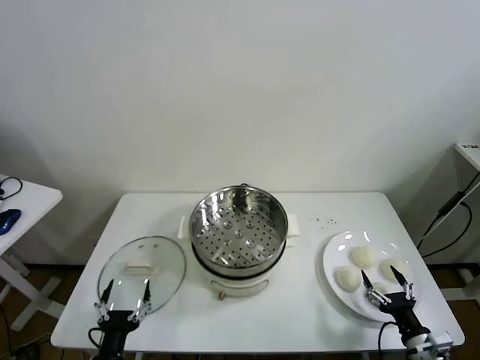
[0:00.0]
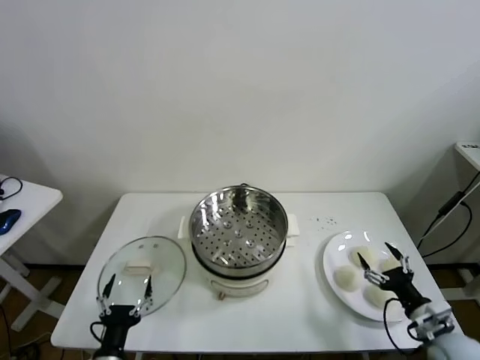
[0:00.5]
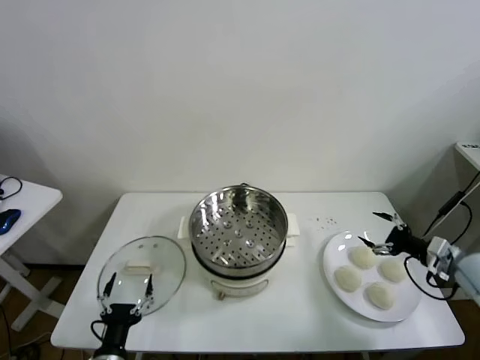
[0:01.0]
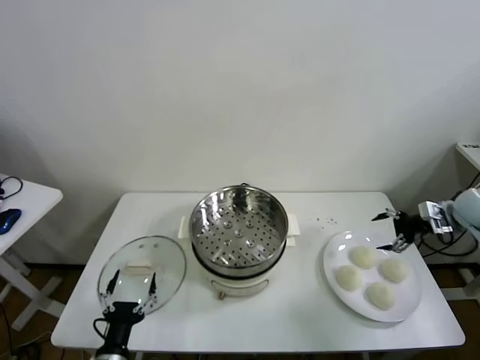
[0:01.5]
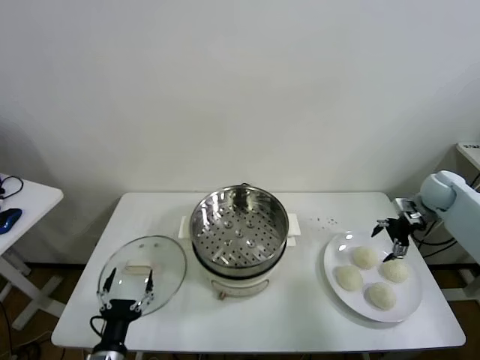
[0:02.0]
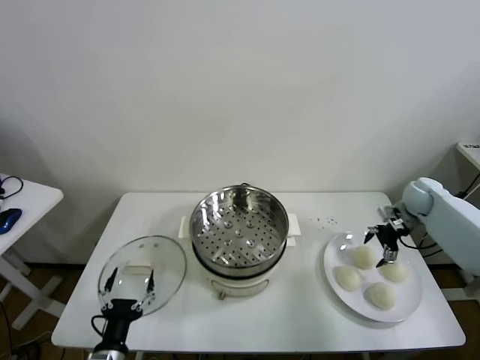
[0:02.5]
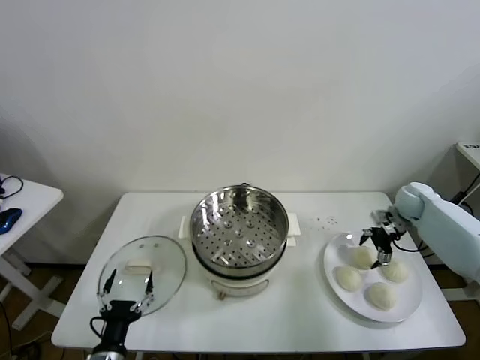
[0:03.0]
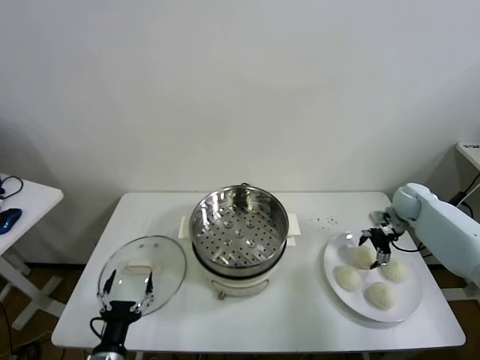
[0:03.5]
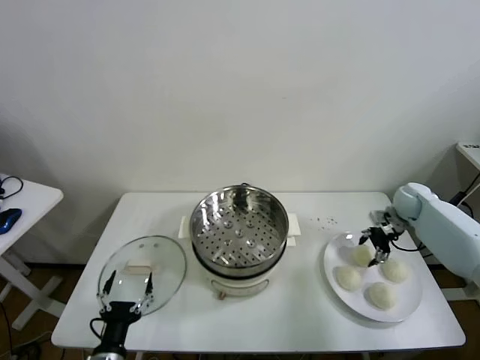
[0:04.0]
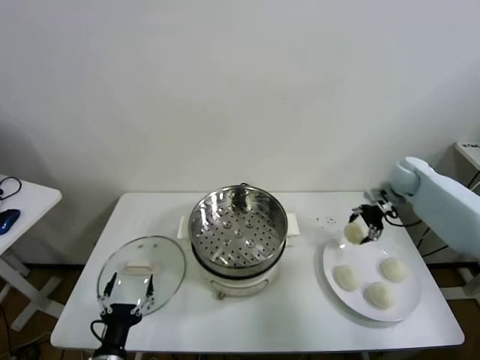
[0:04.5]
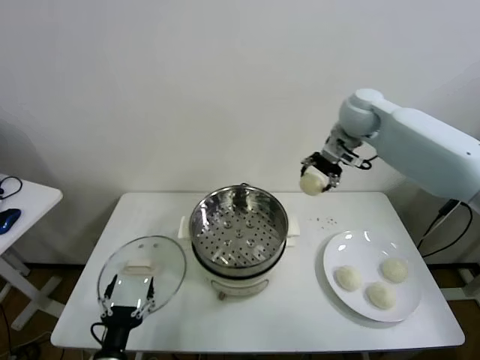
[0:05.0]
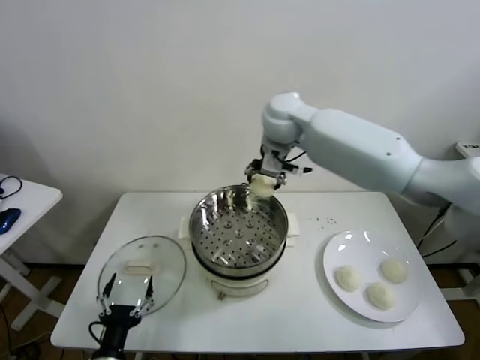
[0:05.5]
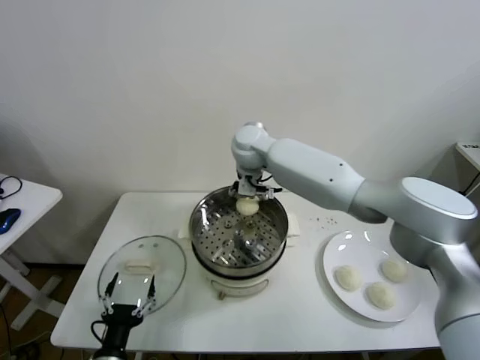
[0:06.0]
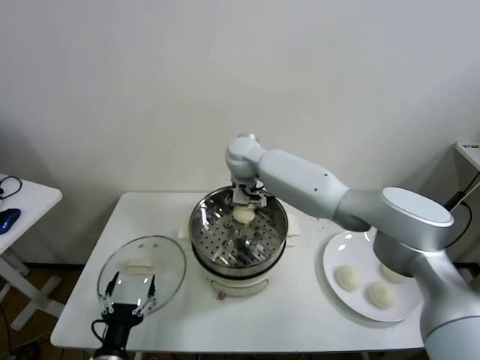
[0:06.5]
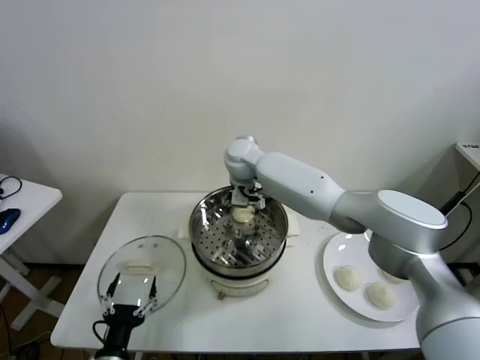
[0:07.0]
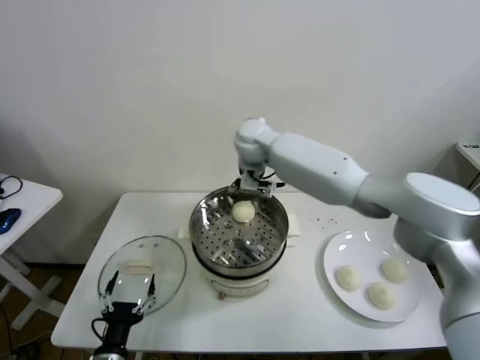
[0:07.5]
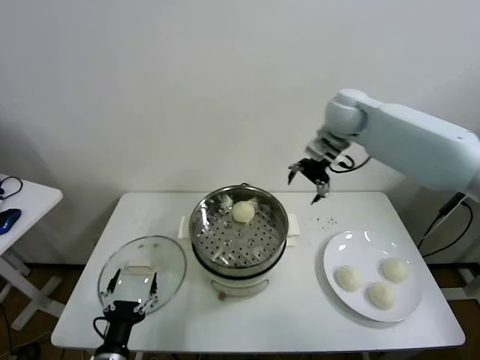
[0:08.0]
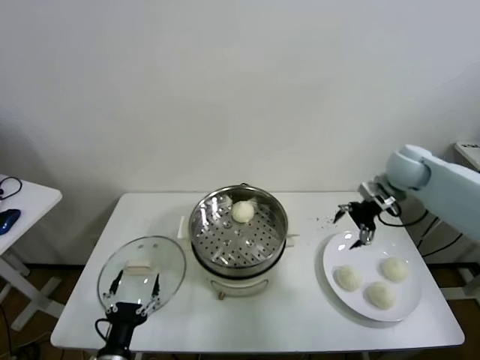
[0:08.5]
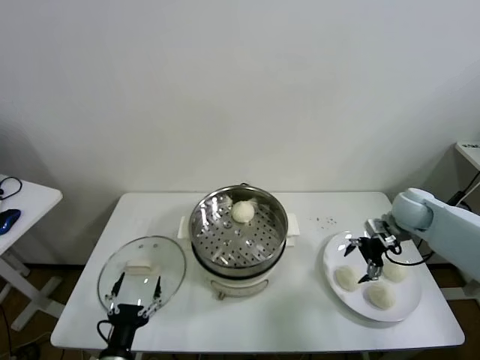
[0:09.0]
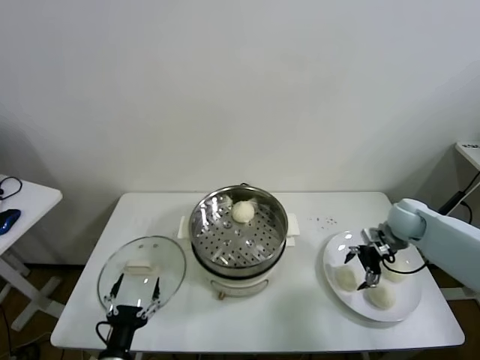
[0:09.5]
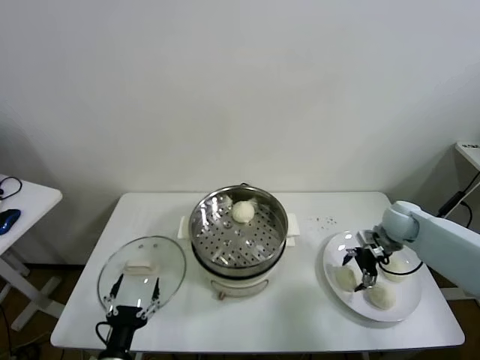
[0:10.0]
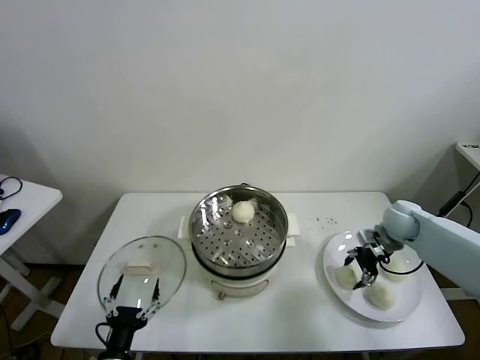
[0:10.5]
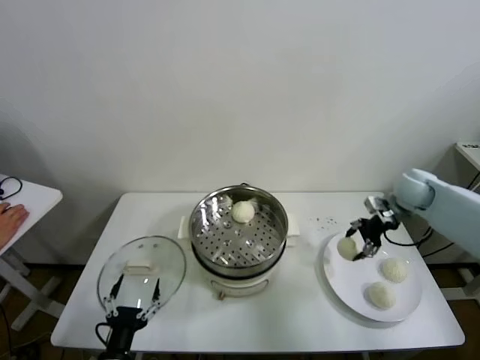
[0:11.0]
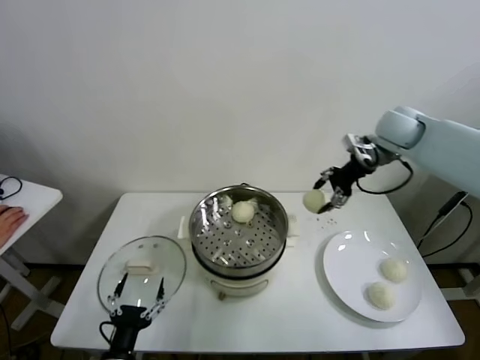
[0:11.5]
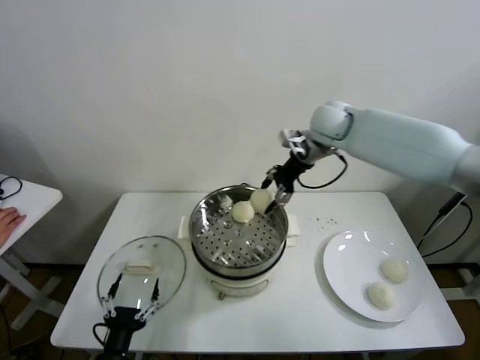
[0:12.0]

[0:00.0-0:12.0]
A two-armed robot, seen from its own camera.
Task of the whole recording: take steamed baozi put them in steamer.
Step, 0.0 to 3.5 s: Grasp the baozi in the plate with right gripper.
Step, 4.0 to 7.0 s: Place the baozi on the steamer with right gripper.
Step, 7.5 to 10.0 s: Grasp the baozi in the plate with right gripper.
2.0 to 4.0 s: The right gripper heads downward, covering some 5 cm, and closes its fingers.
4.0 to 6.0 s: The right gripper heads to the left, covering roughly 40 cm.
6.0 to 8.0 s: The right gripper heads to the right and upward, covering approximately 20 cm, and opens its fingers.
8.0 to 10.0 s: The right gripper goes some 30 cm downward and to the right.
10.0 to 12.0 s: The right gripper shifts about 30 cm upward, to the left and forward, and closes its fingers.

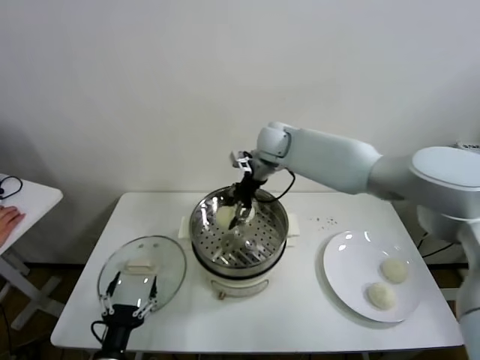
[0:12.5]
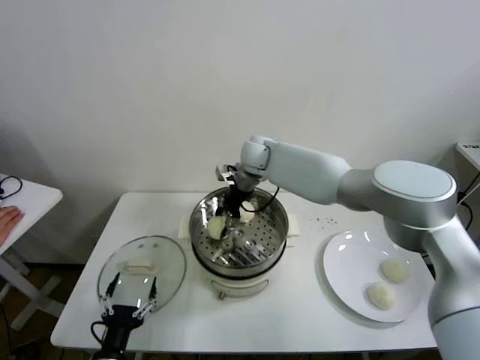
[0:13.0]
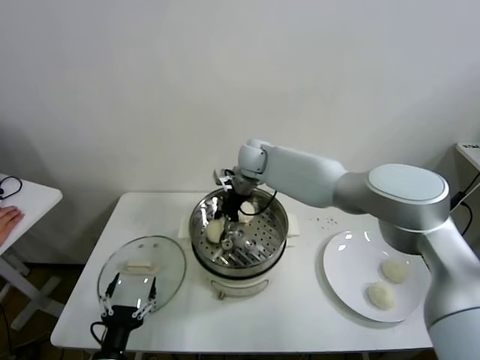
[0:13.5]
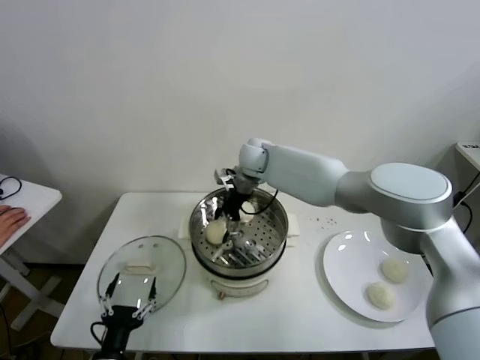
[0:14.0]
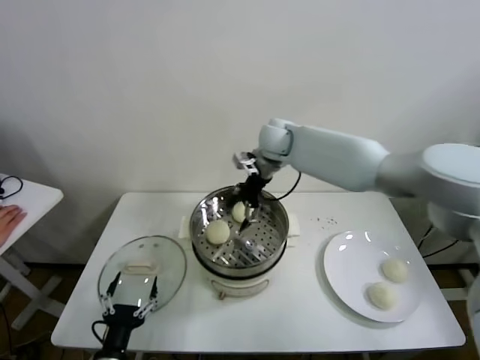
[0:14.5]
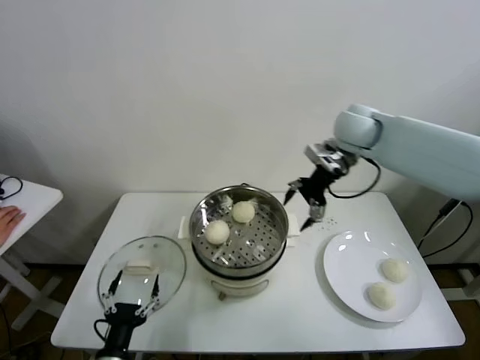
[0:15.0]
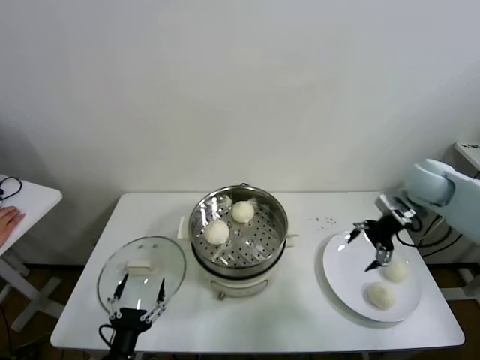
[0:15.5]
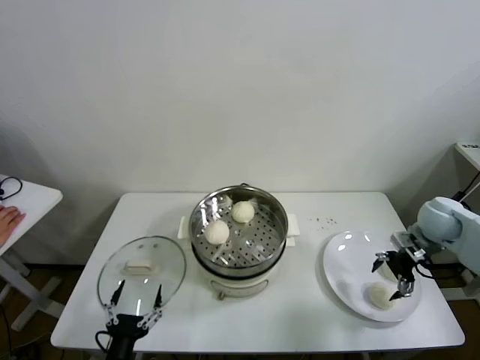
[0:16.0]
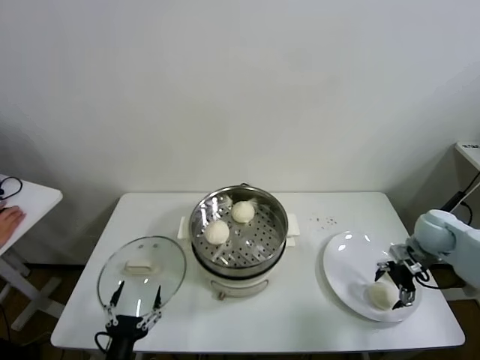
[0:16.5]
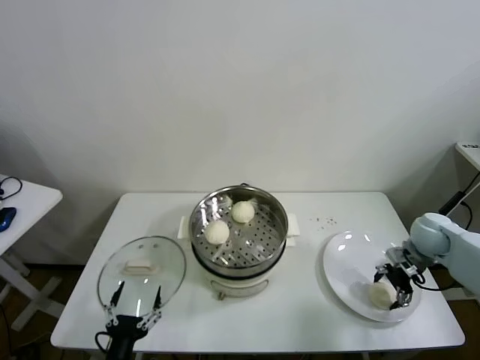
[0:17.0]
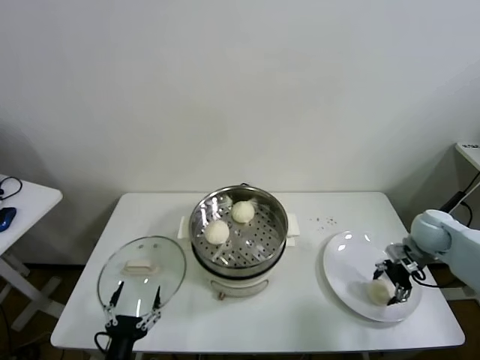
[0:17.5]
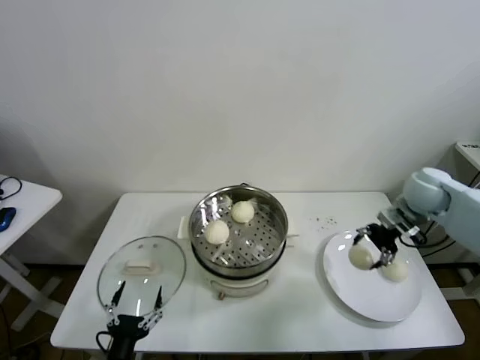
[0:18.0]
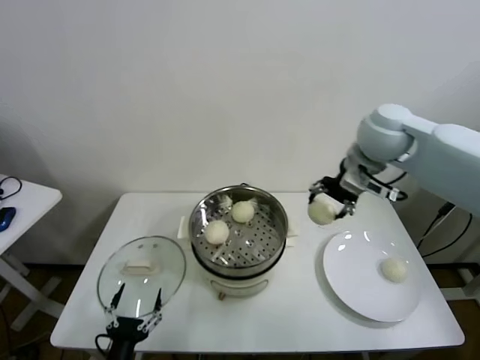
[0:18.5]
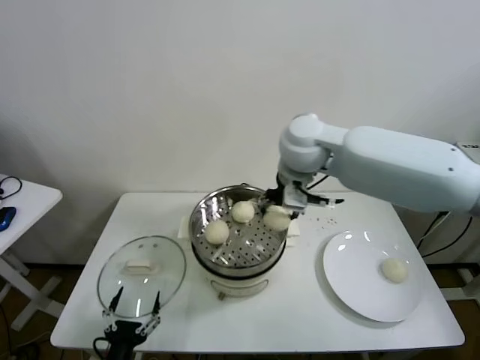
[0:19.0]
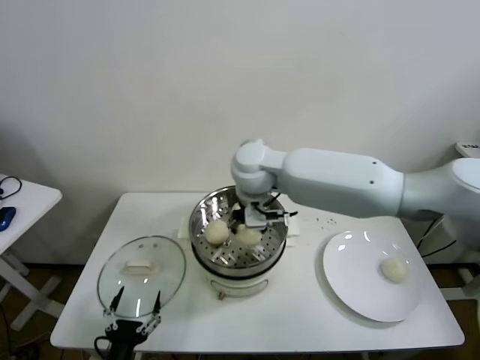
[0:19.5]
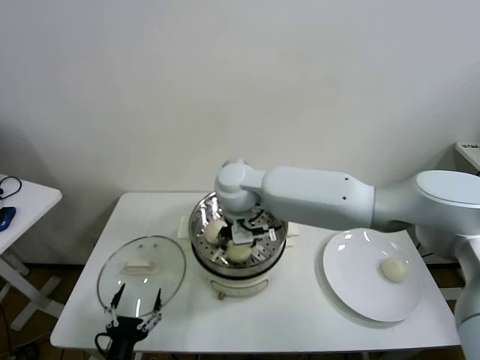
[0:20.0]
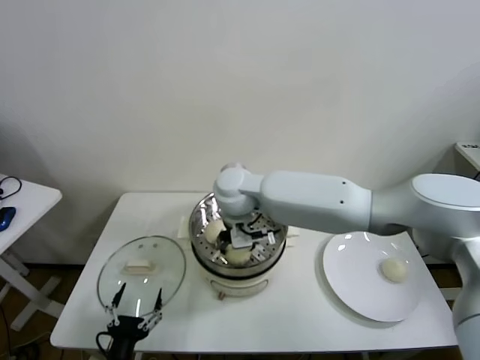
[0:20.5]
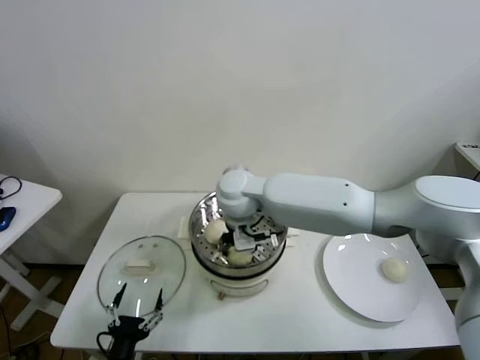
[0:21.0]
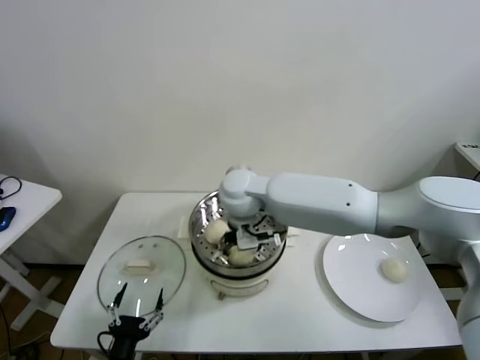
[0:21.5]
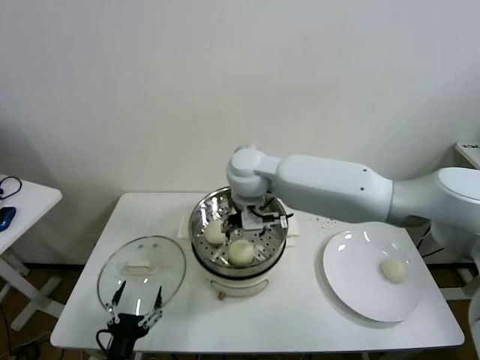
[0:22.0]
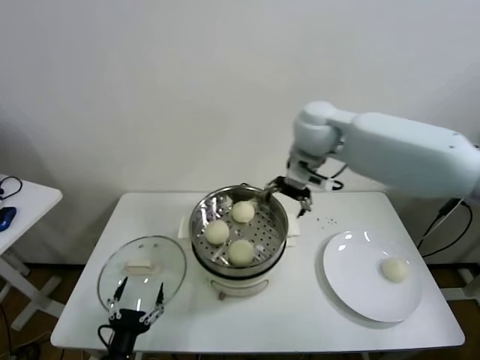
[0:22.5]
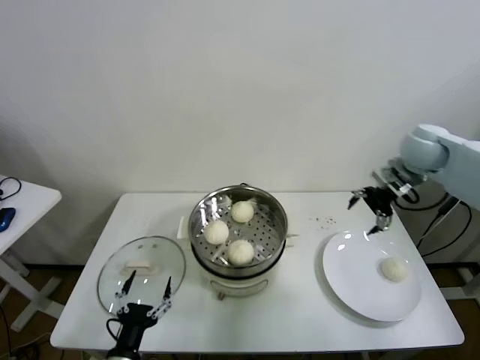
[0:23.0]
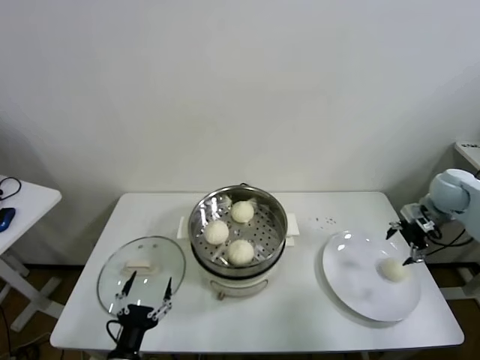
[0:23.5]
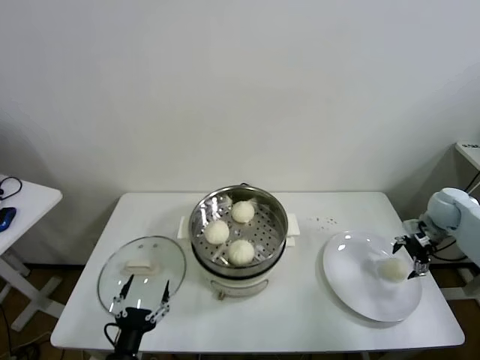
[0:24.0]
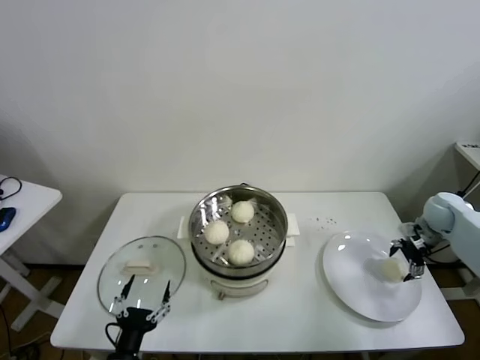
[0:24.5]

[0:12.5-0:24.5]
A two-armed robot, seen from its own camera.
Task of the whole recording: take steamed baozi put them in steamer.
Step, 14.5 to 17.0 s: Grasp the baozi in the plate with right gripper.
Step, 17.5 to 21.5 s: Place the baozi on the steamer with right gripper.
12.5 to 14.5 s: The right gripper opens its fingers.
14.5 to 16.5 s: The right gripper is displaced to the right, backward and downward by some 40 cm.
16.5 to 18.5 s: The right gripper is displaced upward and to the left by approximately 30 cm, and closes its fingers.
18.5 to 20.5 s: The right gripper shifts approximately 30 cm to the left and downward.
20.5 to 22.5 s: The right gripper is displaced to the right and upward by some 20 cm, and opens up.
22.5 to 24.5 s: The right gripper shifts some 50 cm to the right and downward.

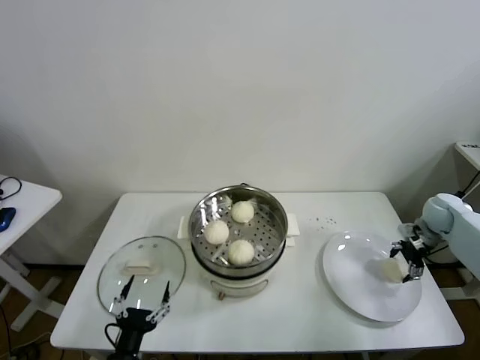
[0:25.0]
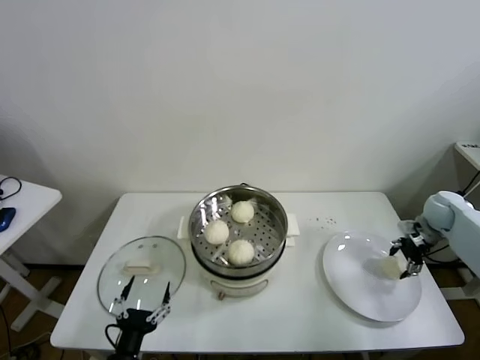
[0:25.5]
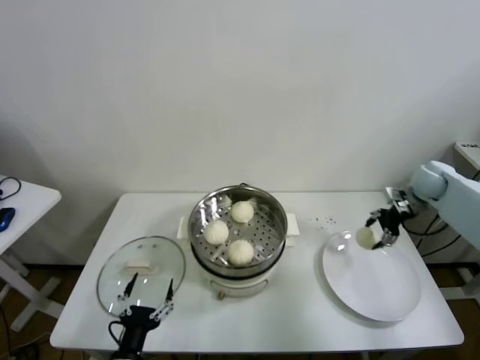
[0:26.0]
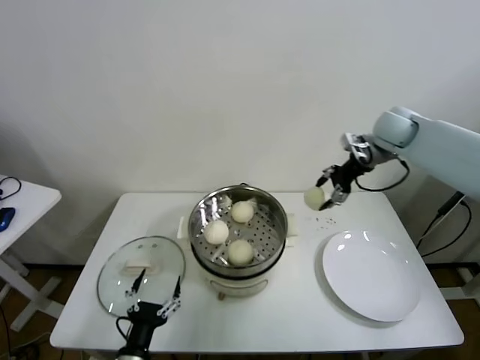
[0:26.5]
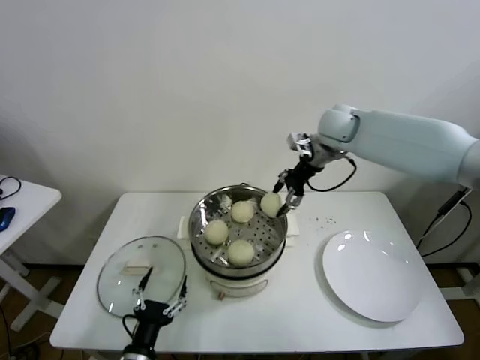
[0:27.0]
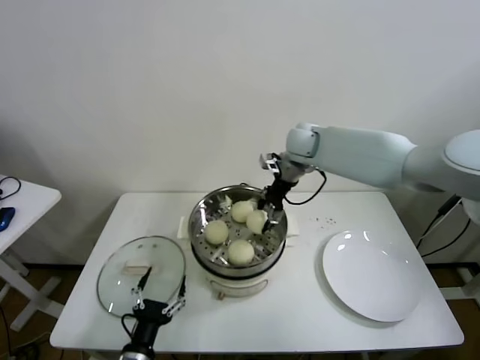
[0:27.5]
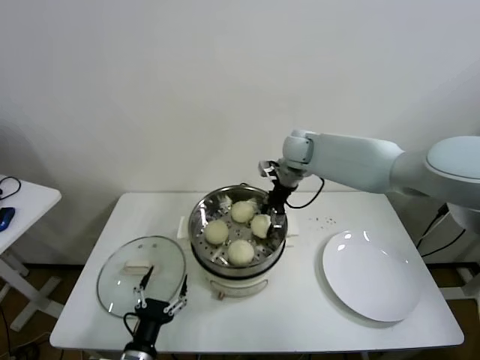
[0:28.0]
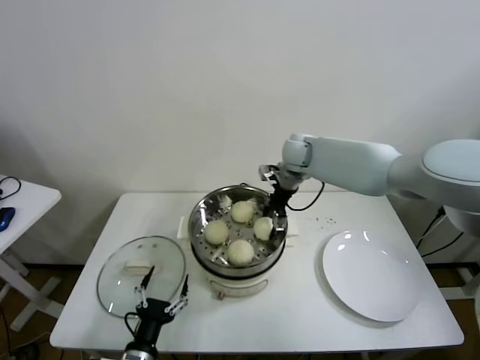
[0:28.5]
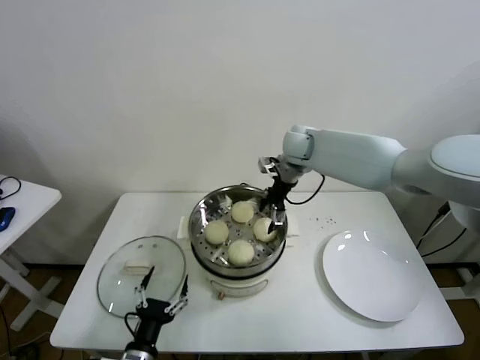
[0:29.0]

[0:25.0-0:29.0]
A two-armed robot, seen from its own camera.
Task of the whole recording: take steamed baozi put them in steamer.
Step, 25.5 to 28.5 s: Place the baozi on the steamer with right gripper.
25.0 to 27.0 s: The right gripper travels to the left and upward by roughly 35 cm, and closes its fingers.
27.0 to 29.0 s: The right gripper moves to the left and downward, about 10 cm, and opens.
